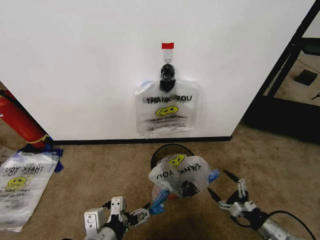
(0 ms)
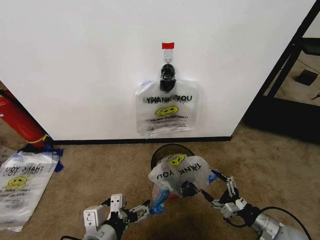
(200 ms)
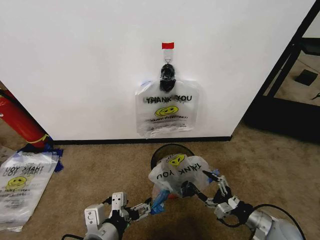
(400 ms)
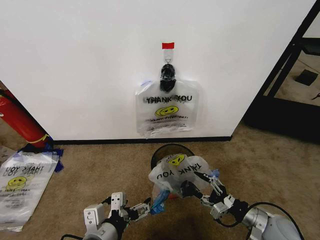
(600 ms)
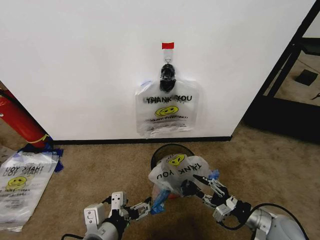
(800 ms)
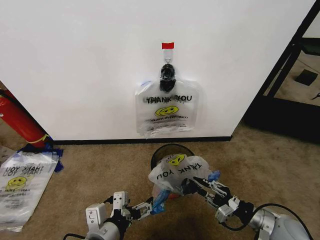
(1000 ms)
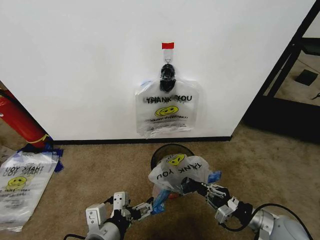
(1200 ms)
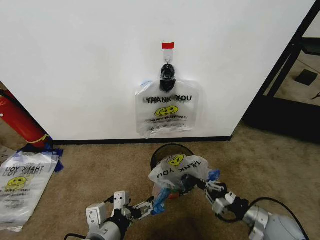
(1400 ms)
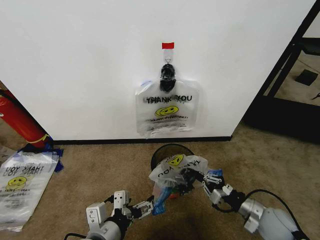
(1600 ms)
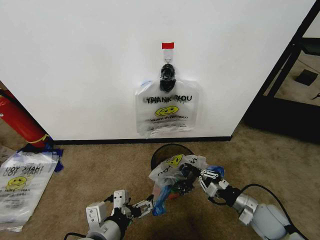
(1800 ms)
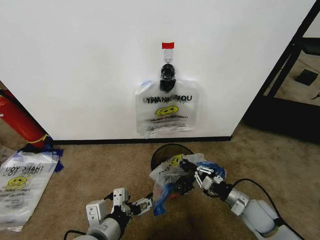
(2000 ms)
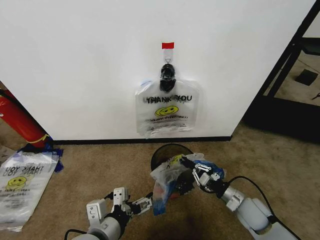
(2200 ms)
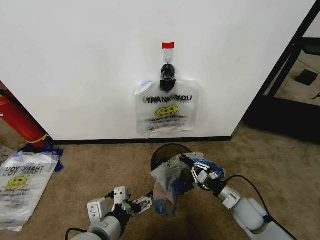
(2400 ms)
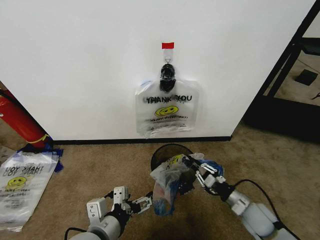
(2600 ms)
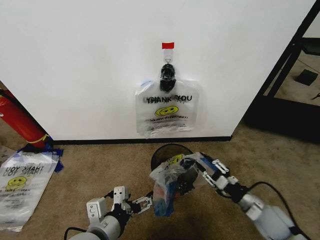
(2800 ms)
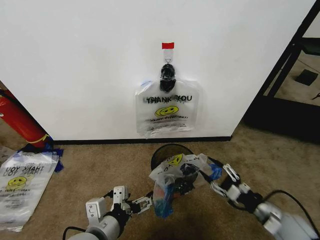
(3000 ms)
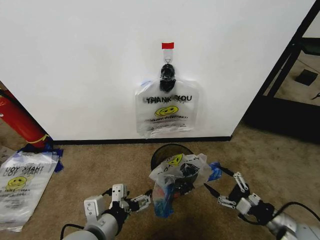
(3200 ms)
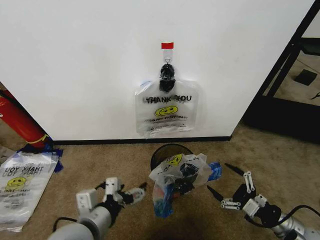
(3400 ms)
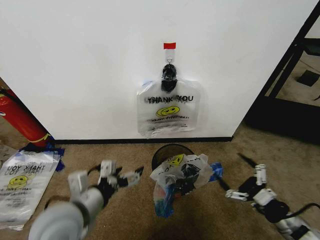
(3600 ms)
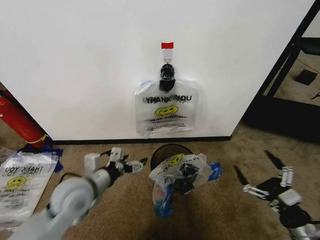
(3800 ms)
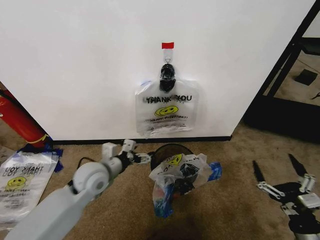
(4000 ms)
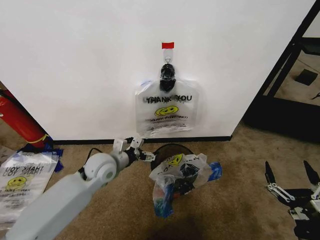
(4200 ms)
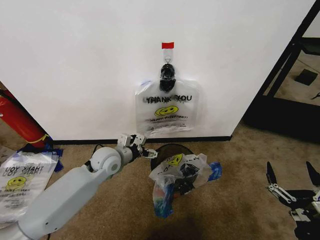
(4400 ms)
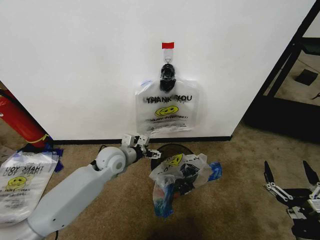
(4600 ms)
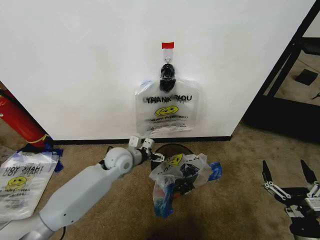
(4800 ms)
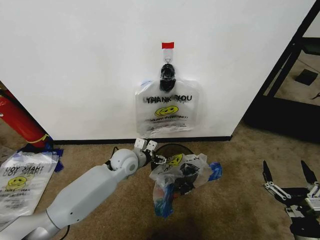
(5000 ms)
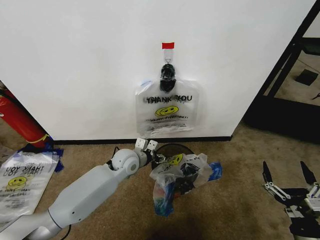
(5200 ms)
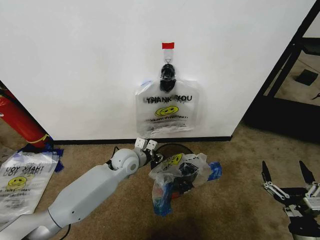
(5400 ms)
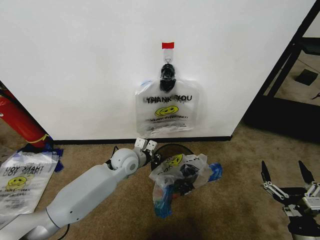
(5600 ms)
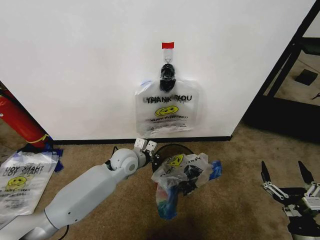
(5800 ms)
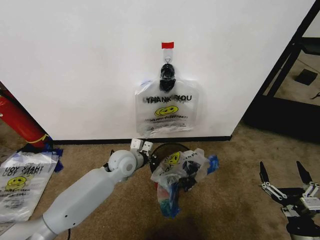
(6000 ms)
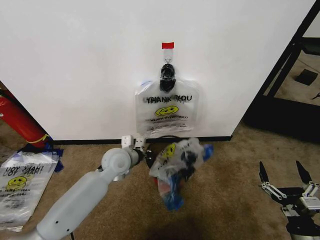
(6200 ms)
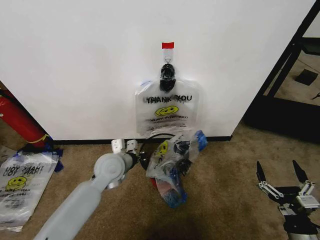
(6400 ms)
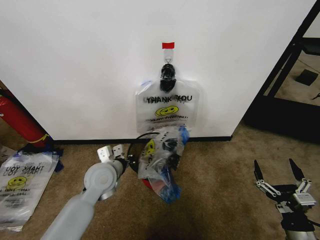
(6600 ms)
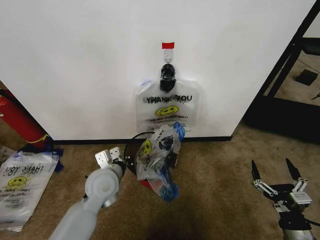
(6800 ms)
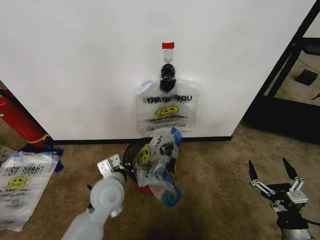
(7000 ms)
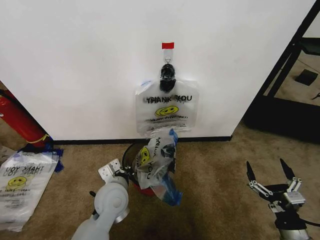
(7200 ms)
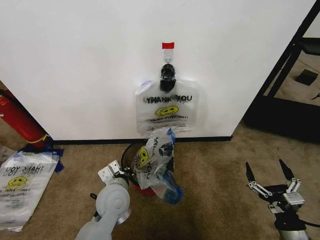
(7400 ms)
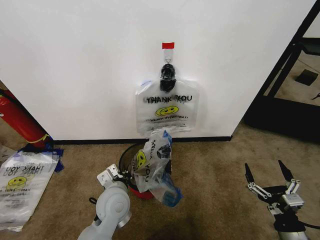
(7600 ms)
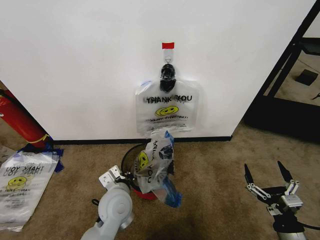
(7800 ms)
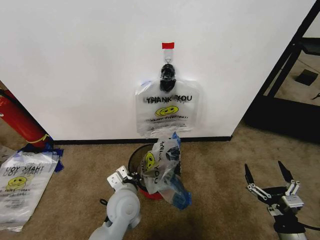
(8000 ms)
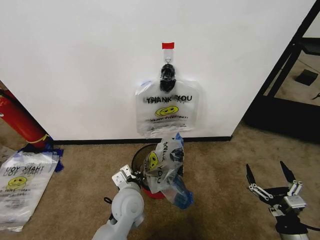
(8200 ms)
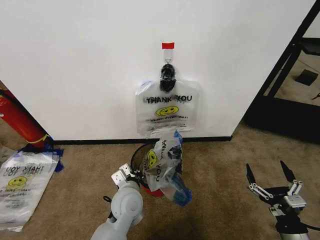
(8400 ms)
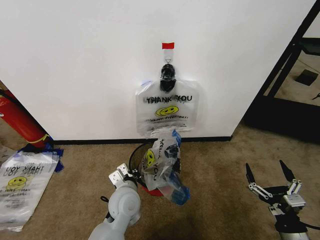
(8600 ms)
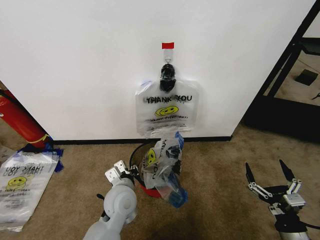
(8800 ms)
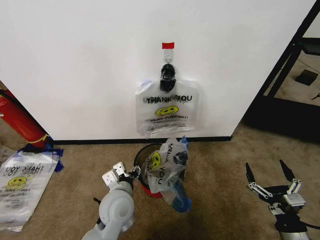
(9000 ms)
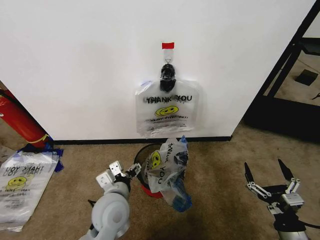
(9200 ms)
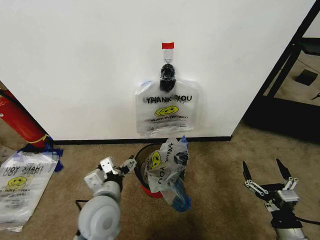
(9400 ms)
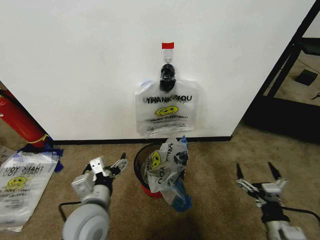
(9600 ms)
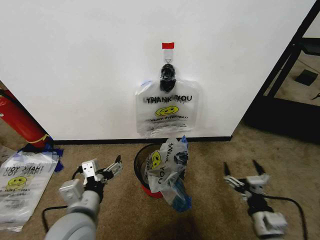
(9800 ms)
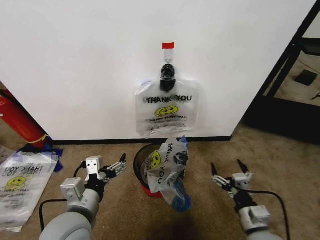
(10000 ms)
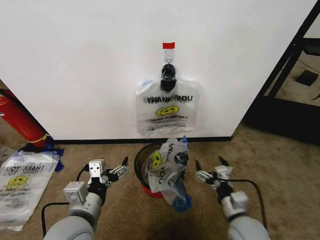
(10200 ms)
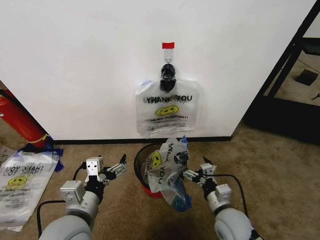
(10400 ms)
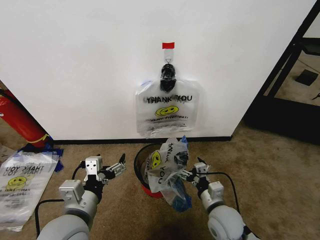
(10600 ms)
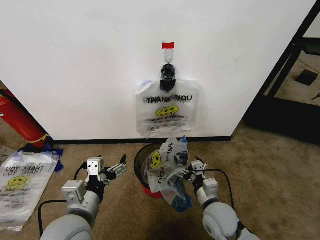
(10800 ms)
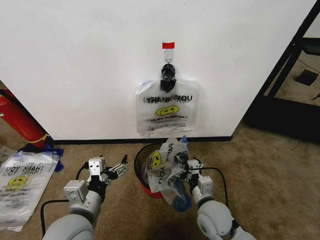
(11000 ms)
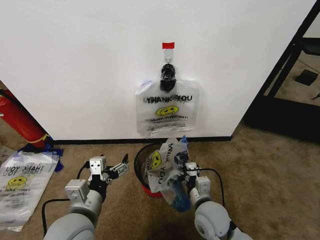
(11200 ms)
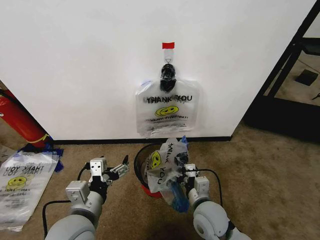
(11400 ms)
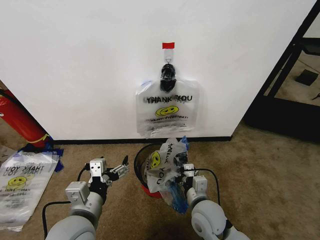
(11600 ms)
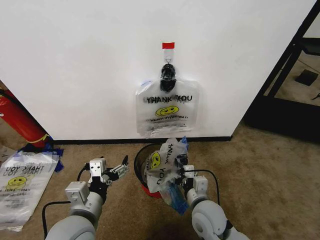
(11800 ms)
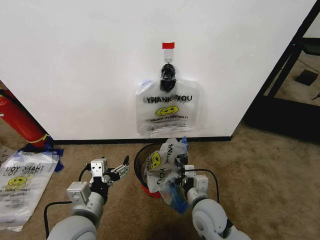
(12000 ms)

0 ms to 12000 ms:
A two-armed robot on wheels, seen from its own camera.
Task of the whole recording: Pick up the garbage bag from the wall and place it over the trash bin.
0 ms to 1600 ms: The right gripper shifts about 5 cm forward, and closes.
1600 ms to 3000 ms: The right gripper opens its fingers.
3000 ms to 4400 ms: The right gripper is displaced backward by about 10 cm, and opens, while the left gripper heads forward, covering some 25 cm.
4400 ms to 6000 ms: The left gripper changes place by about 5 cm, and closes.
6000 ms to 7600 ms: The left gripper goes approximately 15 cm backward.
7600 ms to 9000 ms: The left gripper opens its fingers.
9000 ms to 10400 ms: The right gripper is displaced to the left and forward by some 20 cm, while the left gripper goes roughly 15 cm backward, to the left and upward, and opens its fingers.
10400 ms to 12000 ms: The right gripper shifts about 5 cm to the left.

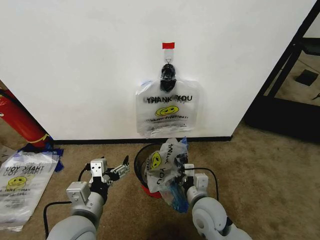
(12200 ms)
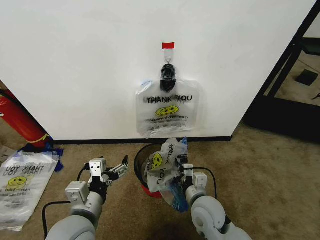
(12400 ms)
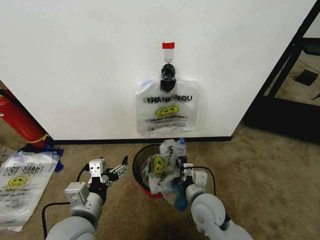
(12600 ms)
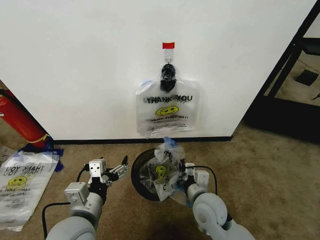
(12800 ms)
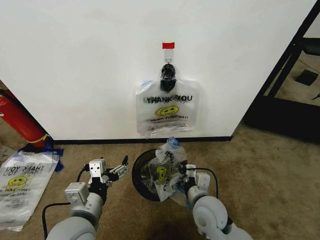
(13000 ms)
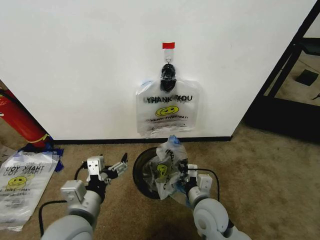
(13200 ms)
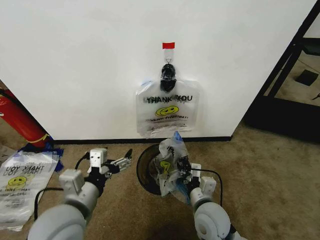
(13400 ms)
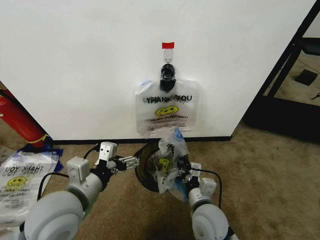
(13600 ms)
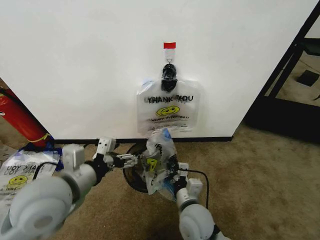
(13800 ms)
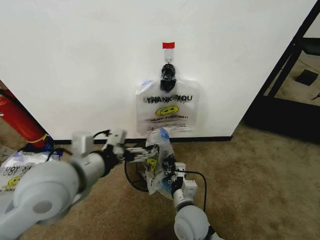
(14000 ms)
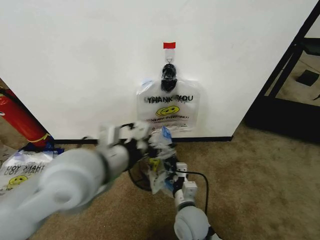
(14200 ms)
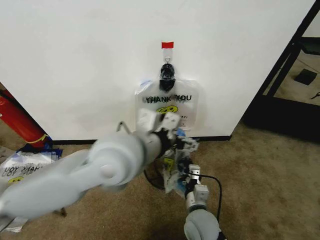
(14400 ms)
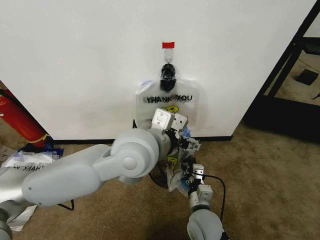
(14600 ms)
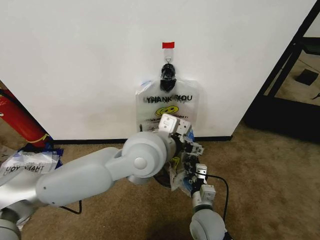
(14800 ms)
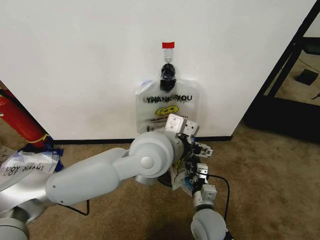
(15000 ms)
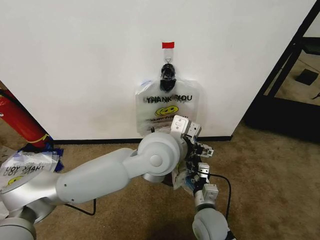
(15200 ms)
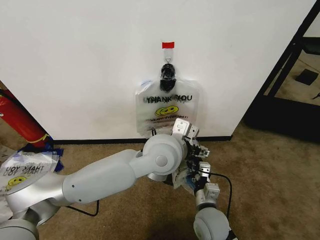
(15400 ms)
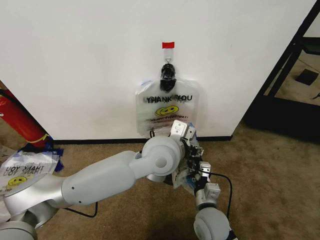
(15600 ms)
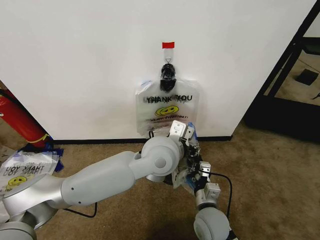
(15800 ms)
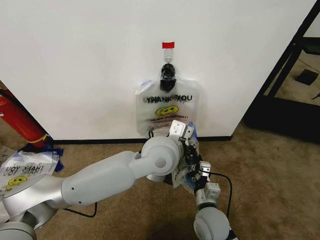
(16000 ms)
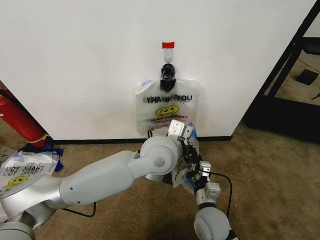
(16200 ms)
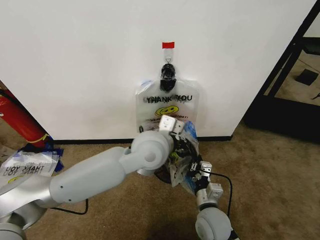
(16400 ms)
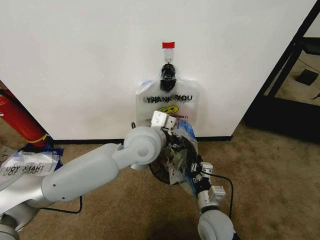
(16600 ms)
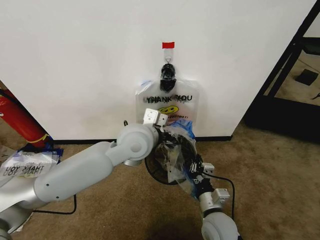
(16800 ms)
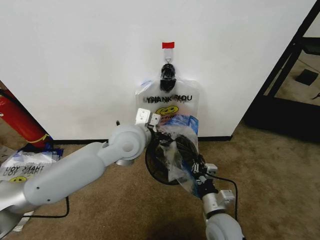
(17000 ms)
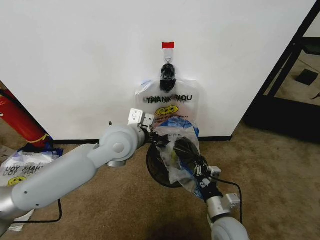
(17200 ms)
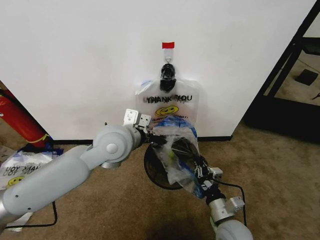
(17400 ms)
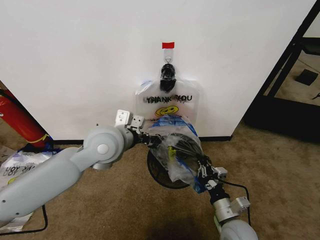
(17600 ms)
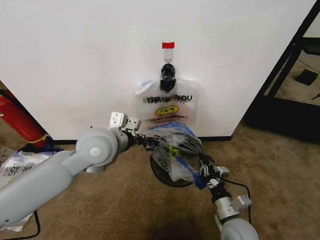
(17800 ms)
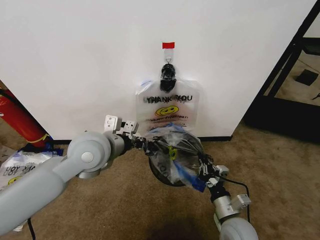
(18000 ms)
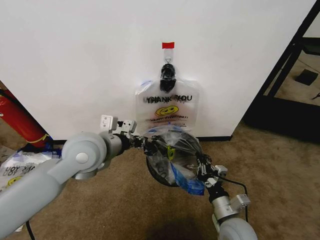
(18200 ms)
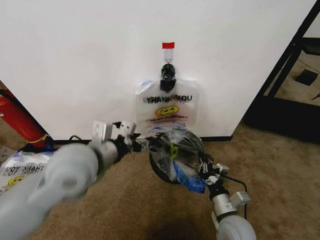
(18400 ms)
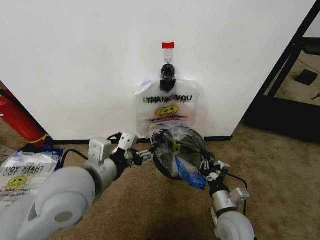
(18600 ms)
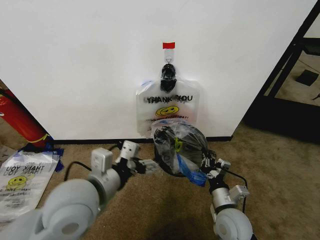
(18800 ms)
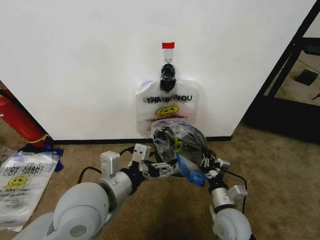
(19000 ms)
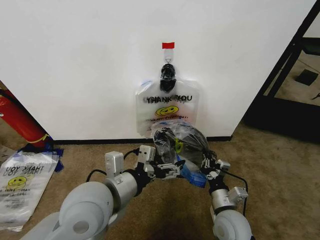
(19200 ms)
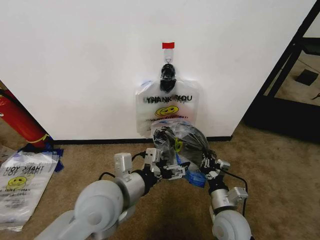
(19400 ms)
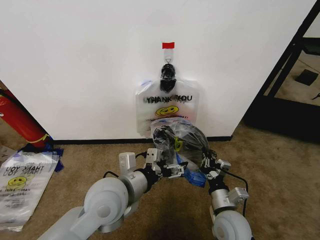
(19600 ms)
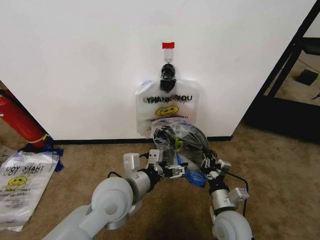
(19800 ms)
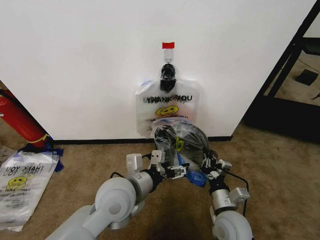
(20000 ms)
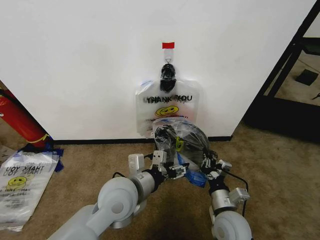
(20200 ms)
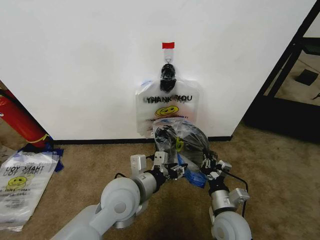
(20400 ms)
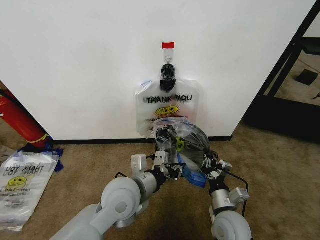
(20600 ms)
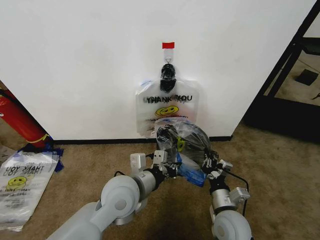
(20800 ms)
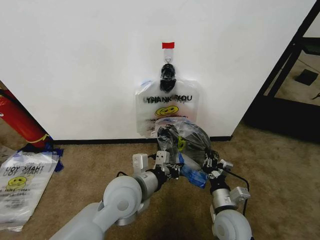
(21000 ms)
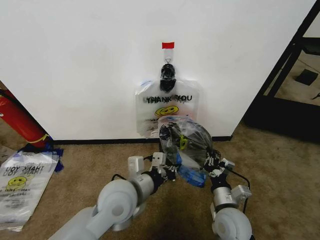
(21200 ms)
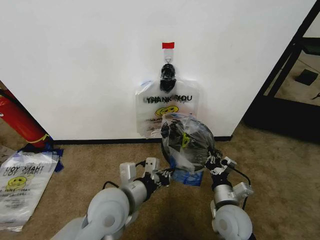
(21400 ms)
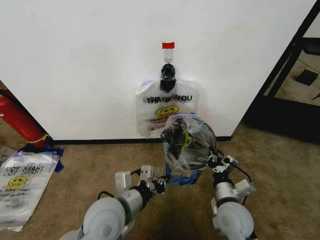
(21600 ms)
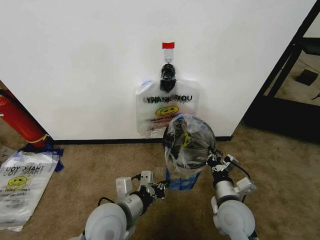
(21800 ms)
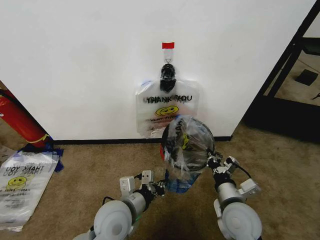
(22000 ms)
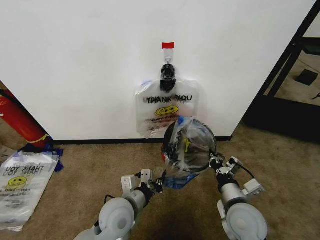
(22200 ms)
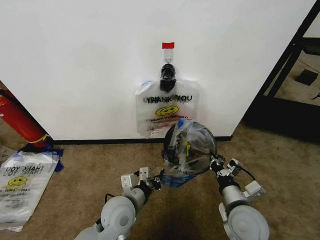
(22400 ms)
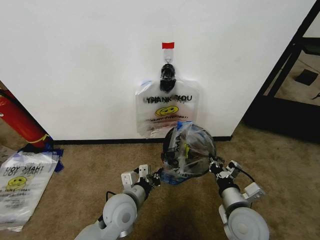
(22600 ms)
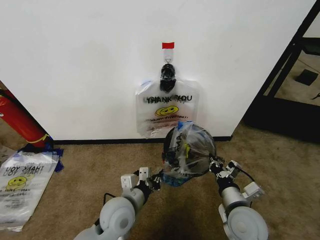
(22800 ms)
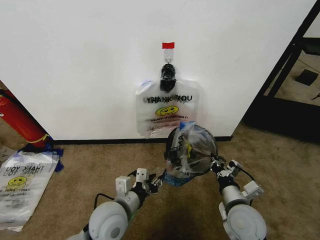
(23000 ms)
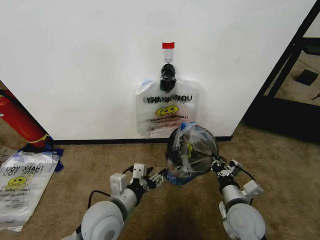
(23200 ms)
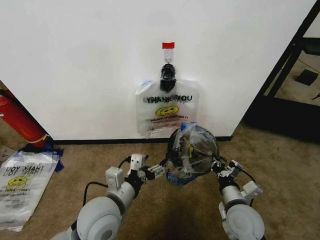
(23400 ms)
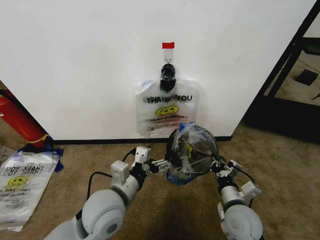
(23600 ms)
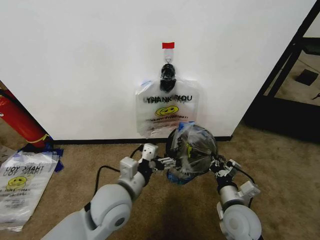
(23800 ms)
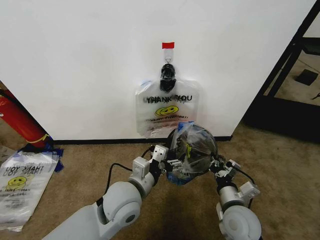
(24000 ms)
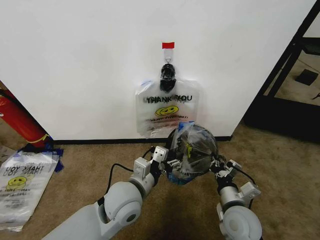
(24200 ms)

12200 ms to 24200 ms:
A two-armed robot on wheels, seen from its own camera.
Task of the whole recording: Pick up the garbage bag from the wall and place it over the trash bin.
12200 ms to 13800 ms: The right gripper closes its fingers. The left gripper moves upward, approximately 10 cm.
13800 ms to 15200 ms: The right gripper ends up approximately 5 cm from where it was, while the left gripper heads to the right and forward, covering about 25 cm.
15200 ms to 16600 ms: The left gripper shifts by roughly 5 cm, and closes.
16600 ms to 18200 ms: The right gripper goes about 5 cm to the right. Meanwhile the left gripper shifts roughly 15 cm to the left.
18200 ms to 19800 ms: The left gripper shifts approximately 15 cm downward, backward and to the right, and opens up.
19800 ms to 21200 ms: The left gripper closes its fingers.
21200 ms to 22600 ms: The left gripper travels downward by about 10 cm.
22600 ms to 24200 ms: The left gripper is displaced upward by some 5 cm, and opens.
